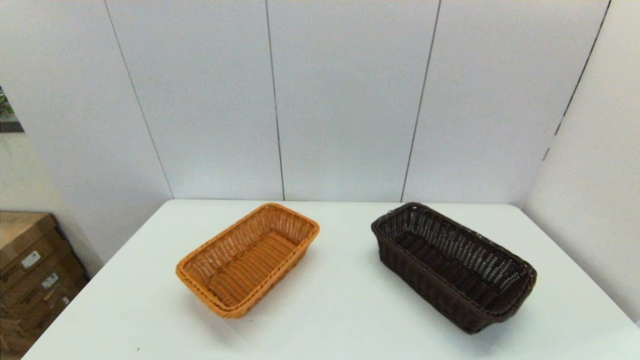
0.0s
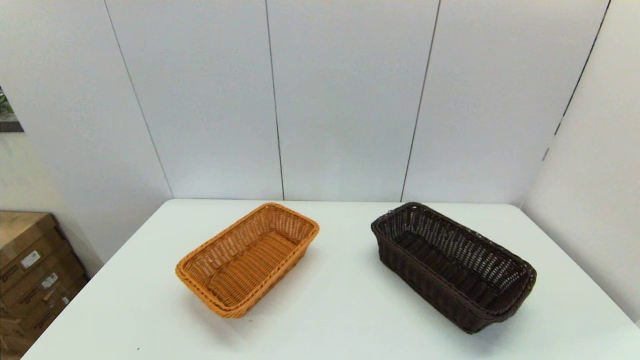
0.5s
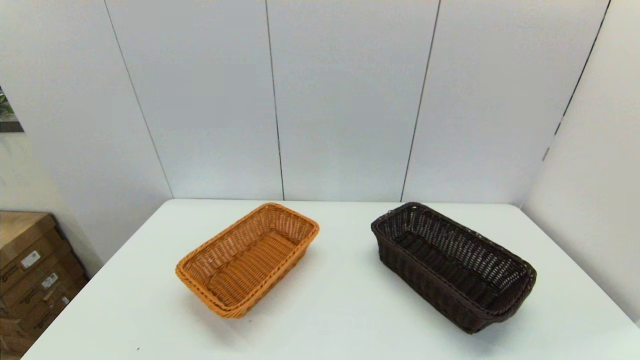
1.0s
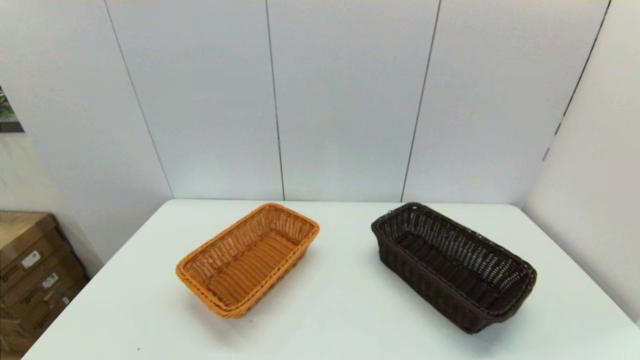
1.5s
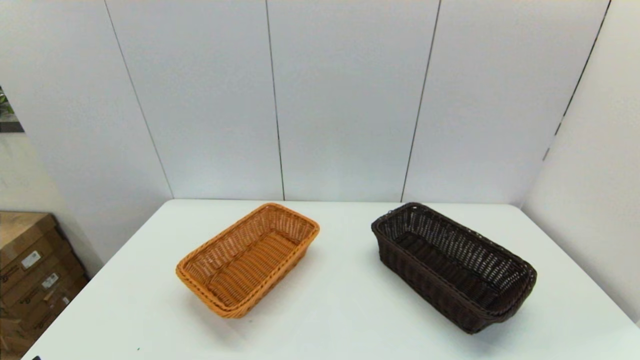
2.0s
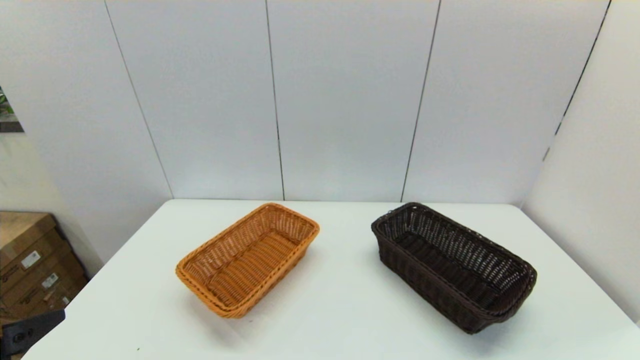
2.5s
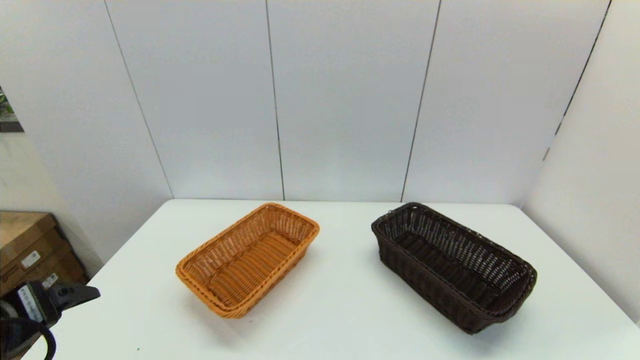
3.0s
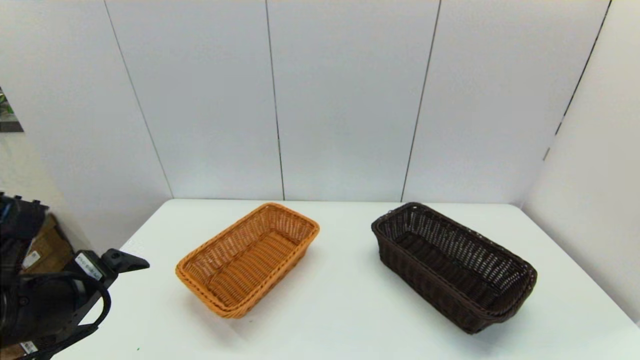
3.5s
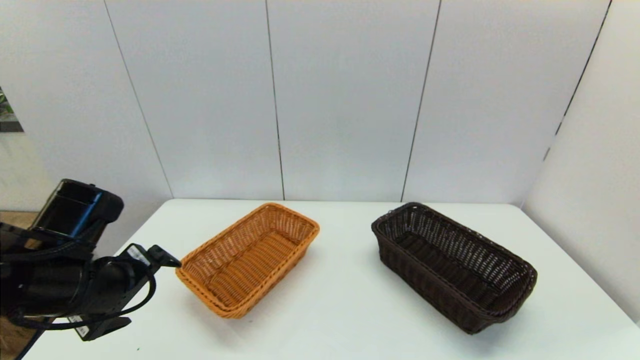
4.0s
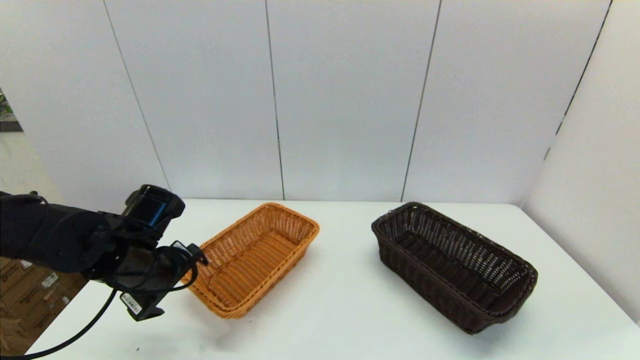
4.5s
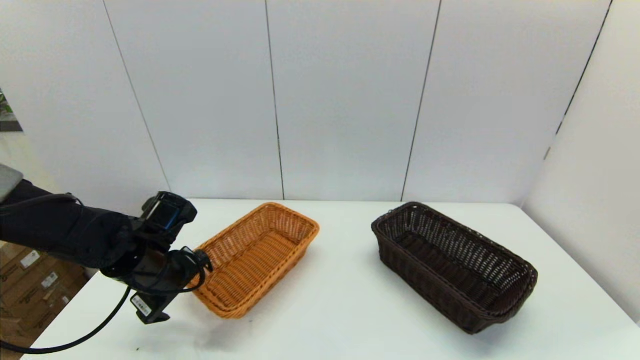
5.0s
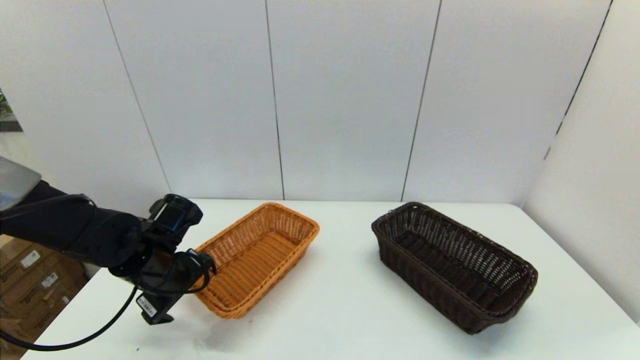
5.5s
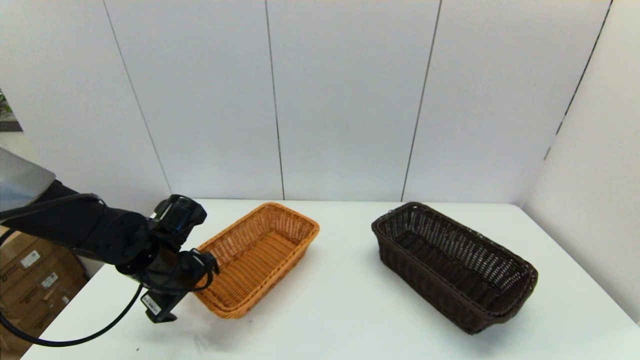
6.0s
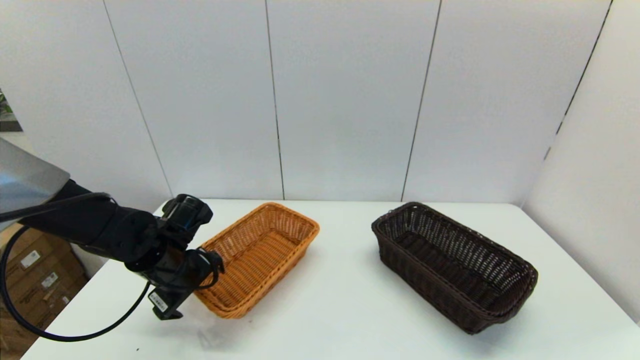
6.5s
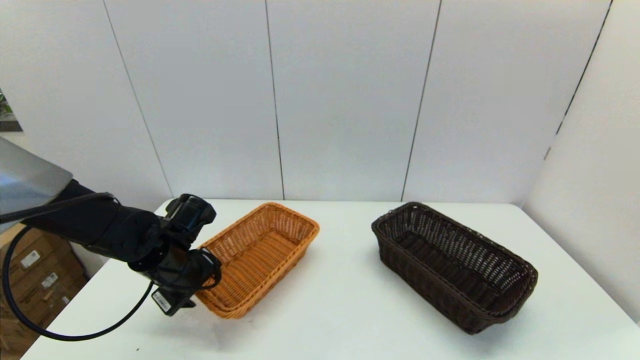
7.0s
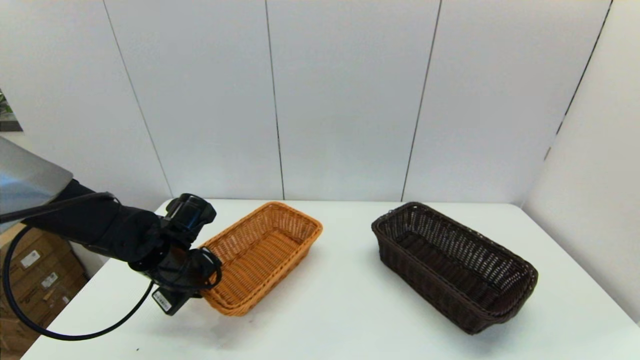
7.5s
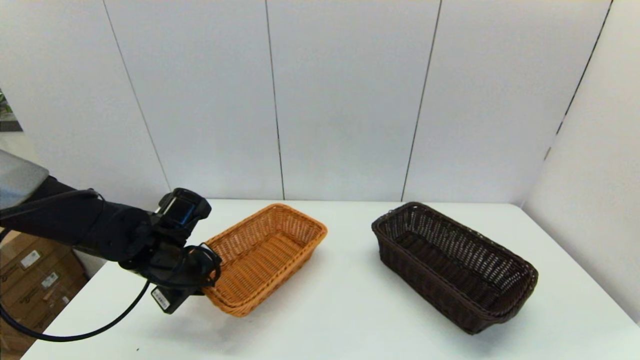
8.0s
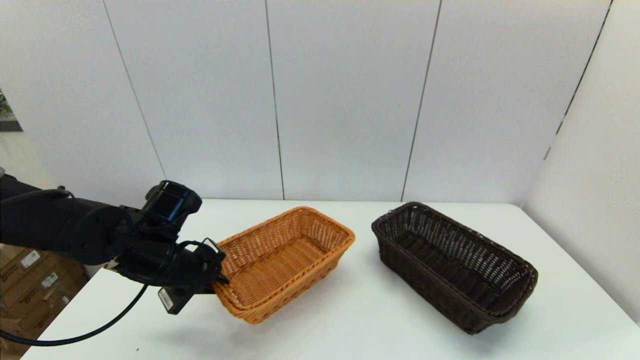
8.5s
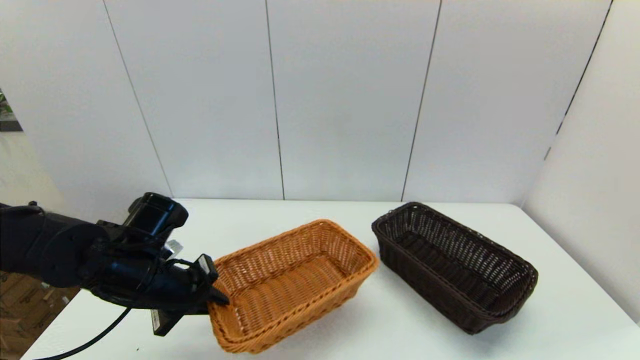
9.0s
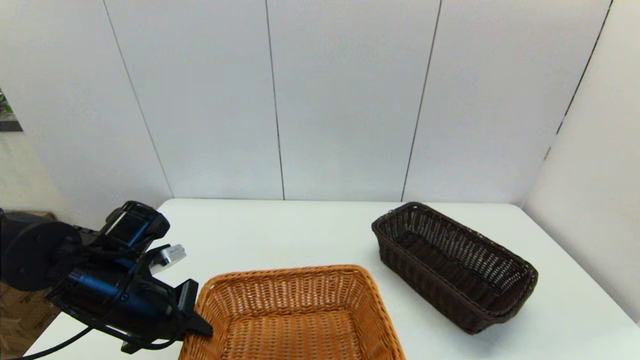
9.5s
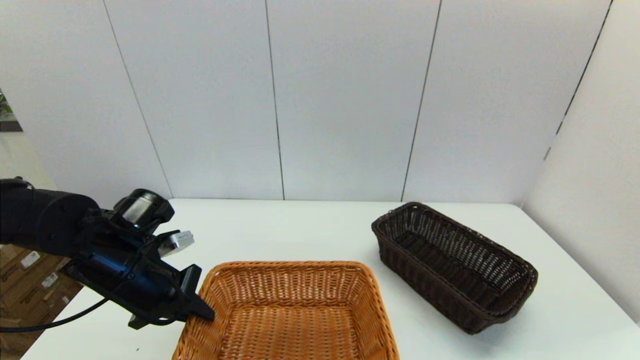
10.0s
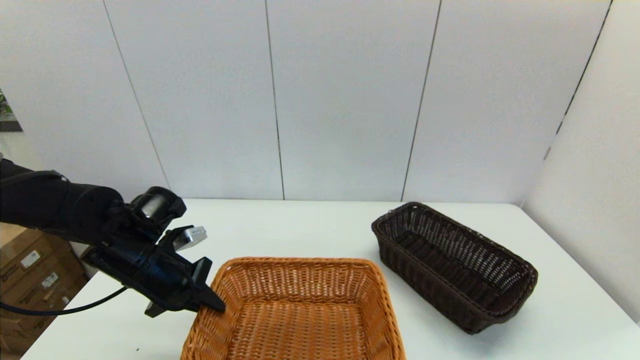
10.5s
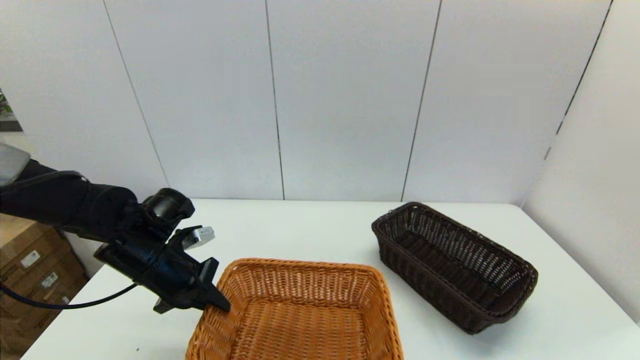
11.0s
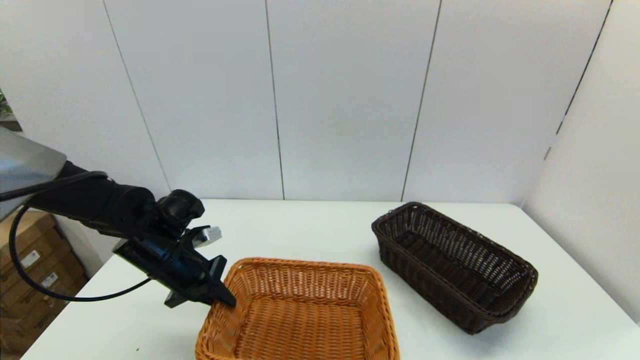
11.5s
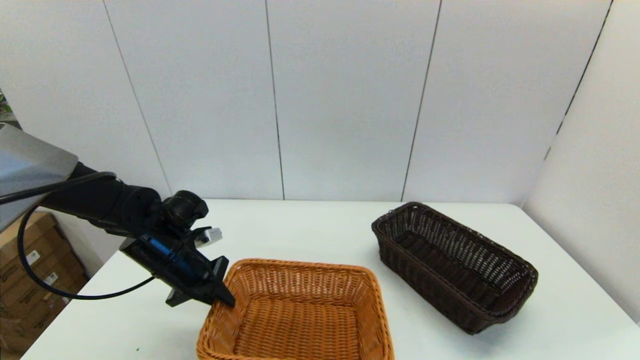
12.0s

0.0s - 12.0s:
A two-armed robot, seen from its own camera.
Task of the whole recording: stack a basket on top of another basket.
Step, 2.0s - 8.0s: Grasp the light basket with the left gripper.
2.0s - 4.0s: The left gripper heads forward, covering approximately 20 cm.
4.0s - 6.0s: The left gripper heads forward and downward, covering about 10 cm.
6.0s - 8.0s: The left gripper closes.
8.0s - 10.0s: The left gripper changes place by about 5 cm.
10.0s - 12.0s: The left gripper travels forward by roughly 5 cm.

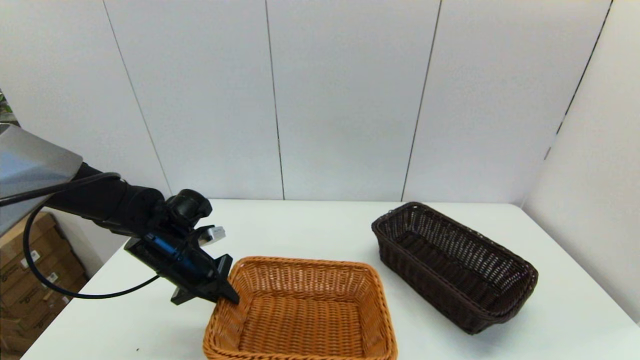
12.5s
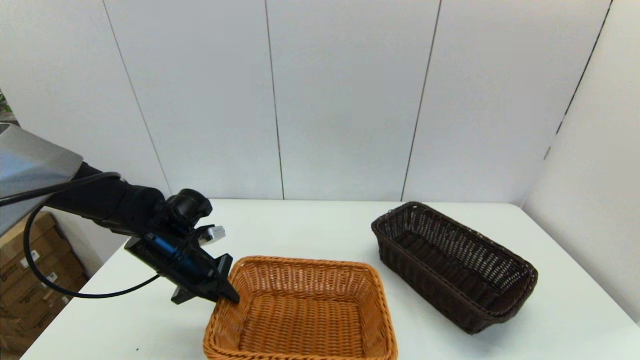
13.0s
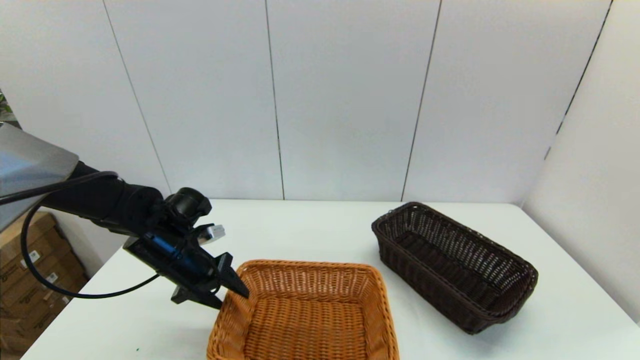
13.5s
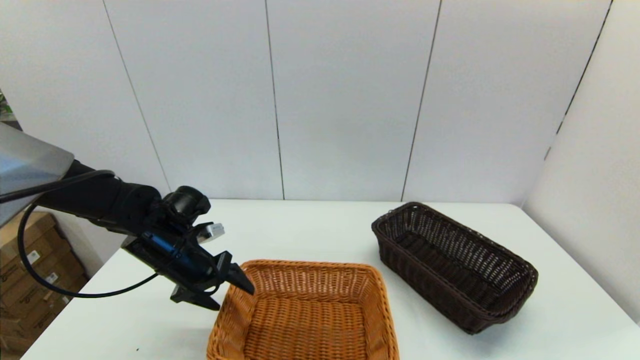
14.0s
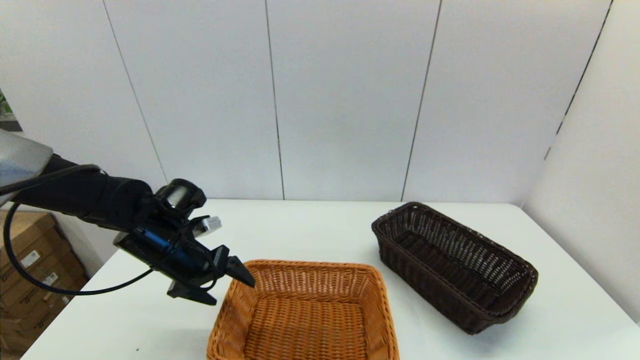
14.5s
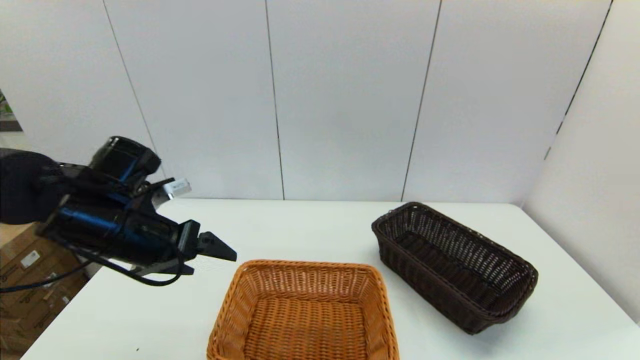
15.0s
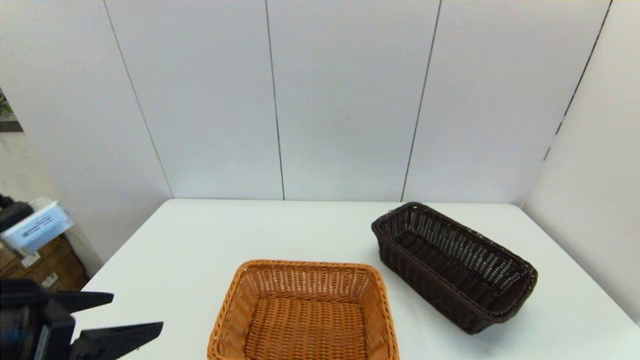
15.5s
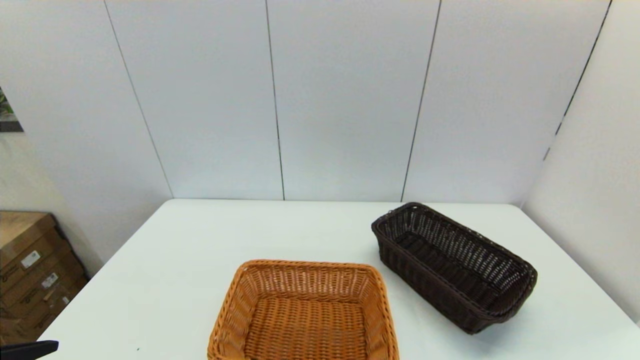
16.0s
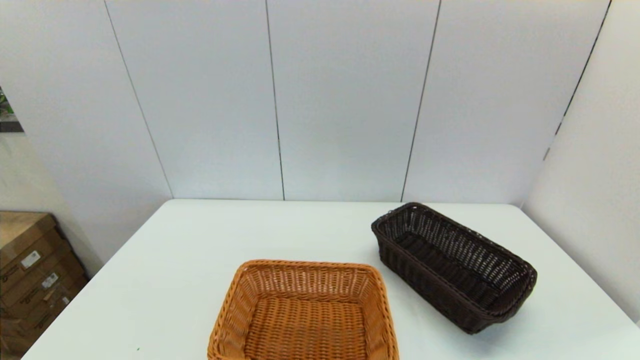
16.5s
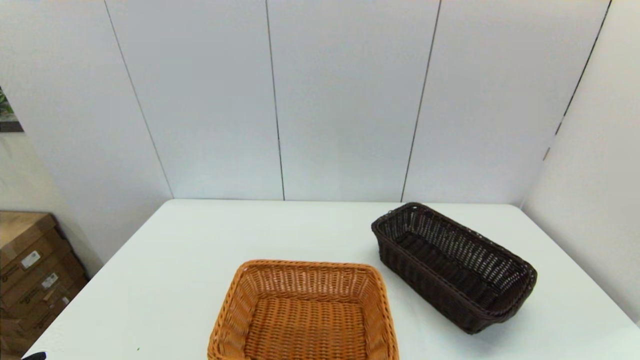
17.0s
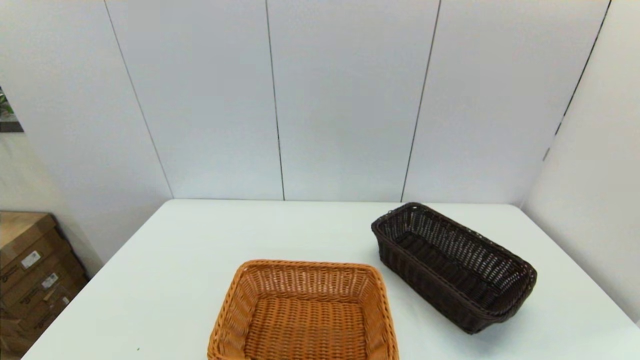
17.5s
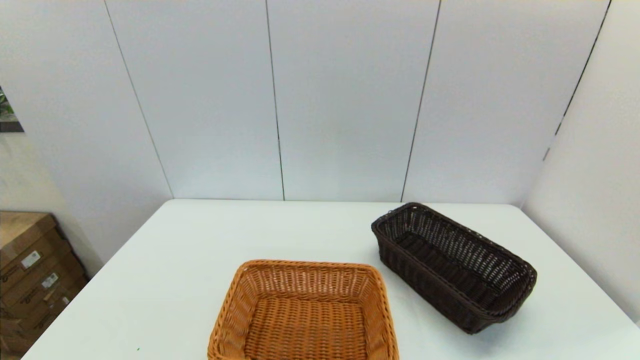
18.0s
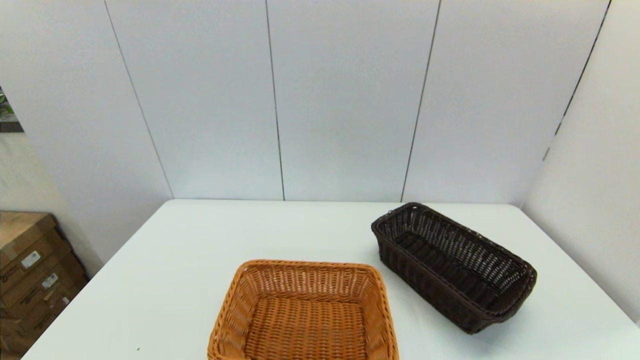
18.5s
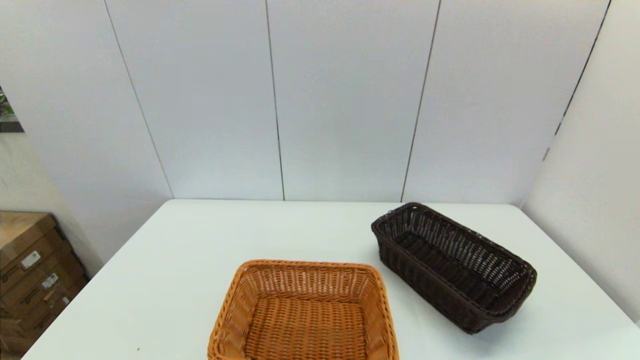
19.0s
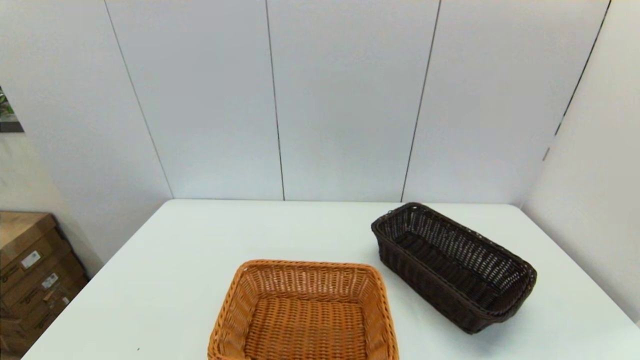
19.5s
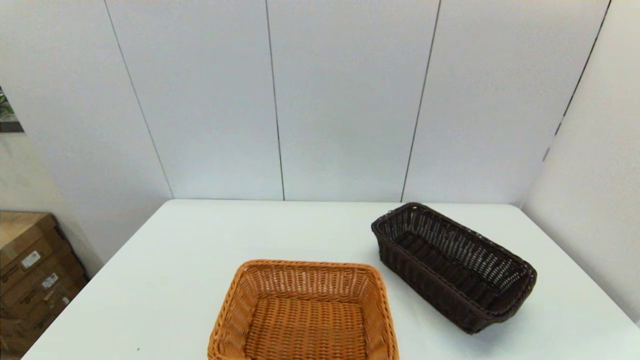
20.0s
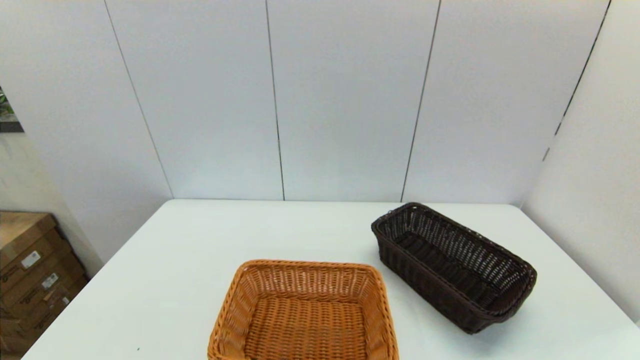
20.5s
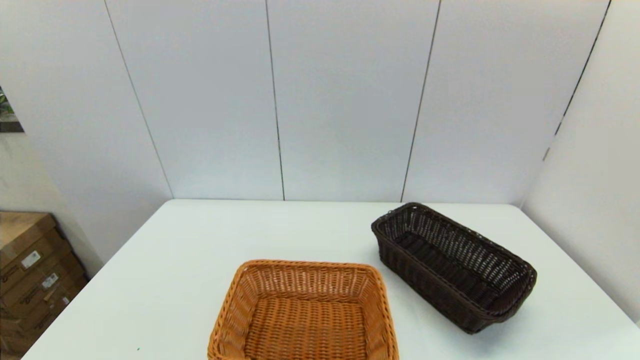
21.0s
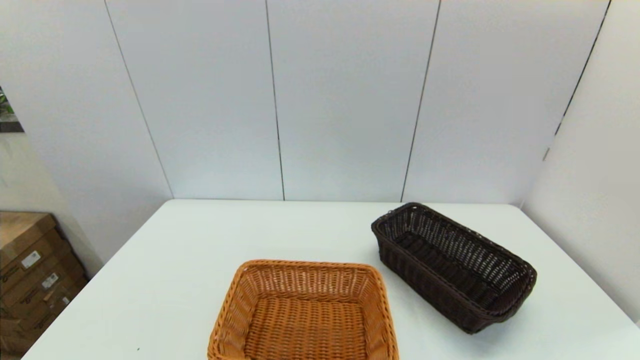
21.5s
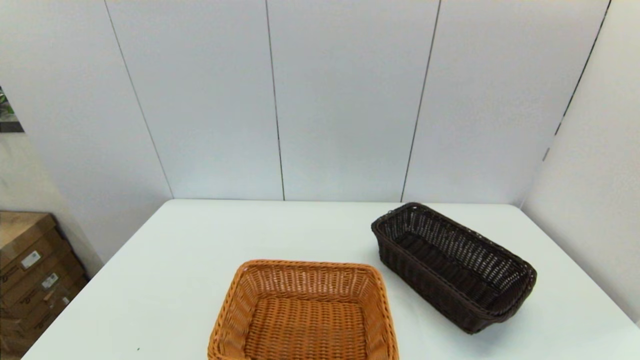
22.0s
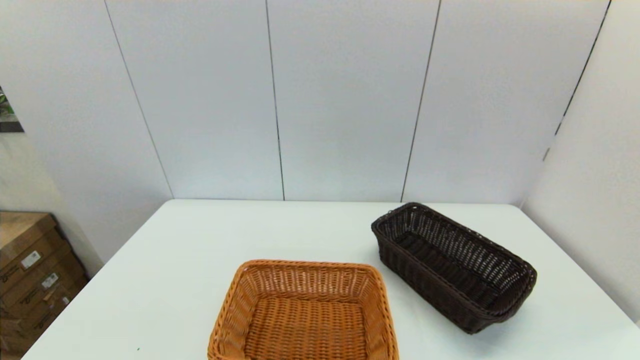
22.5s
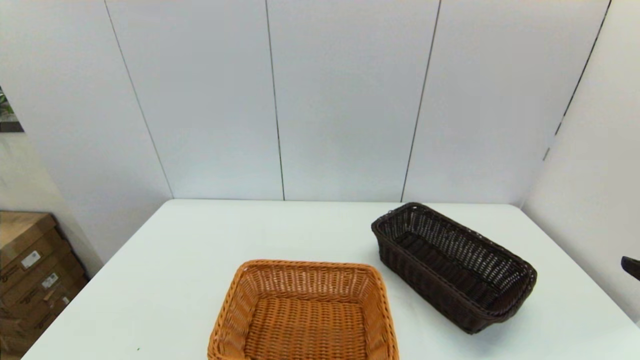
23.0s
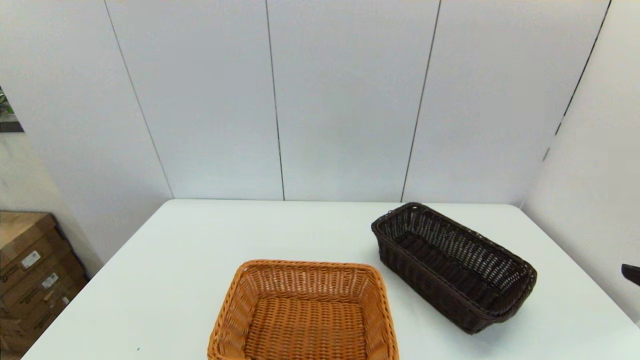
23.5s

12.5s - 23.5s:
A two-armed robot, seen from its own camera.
Task of the whole recording: stack a basket on top of another basket.
Step, 12.5s - 14.5s: Place the light basket on the middle of the table with the left gripper.
12.5s - 14.5s: The left gripper opens up.
14.5s - 16.0s: The left gripper goes some 25 cm backward.
